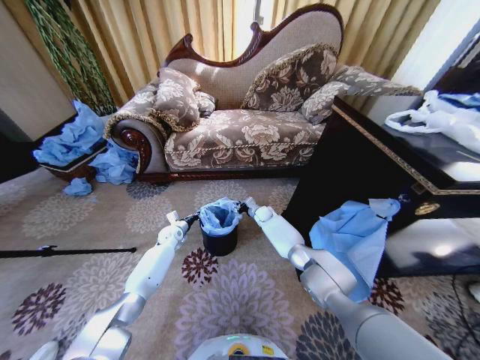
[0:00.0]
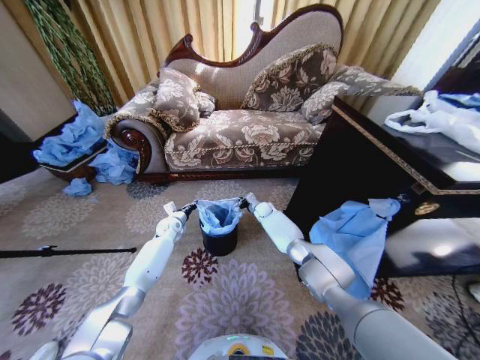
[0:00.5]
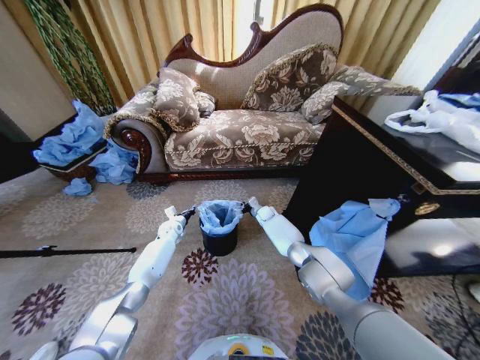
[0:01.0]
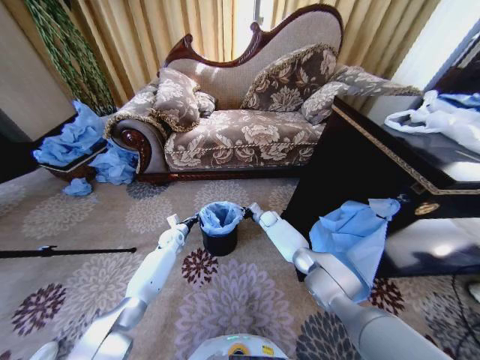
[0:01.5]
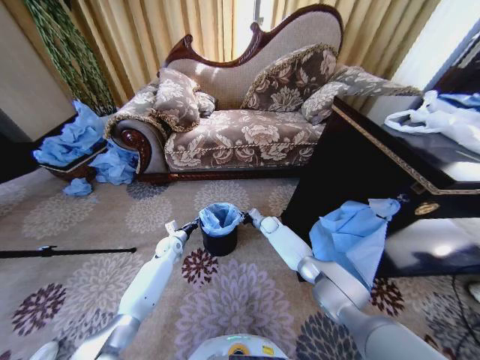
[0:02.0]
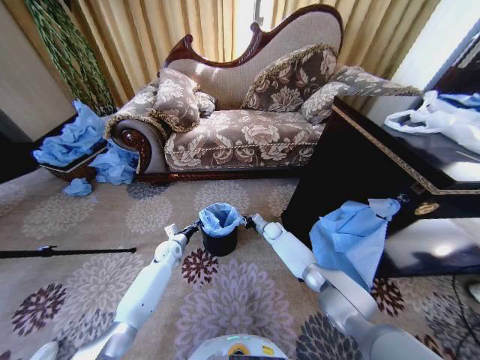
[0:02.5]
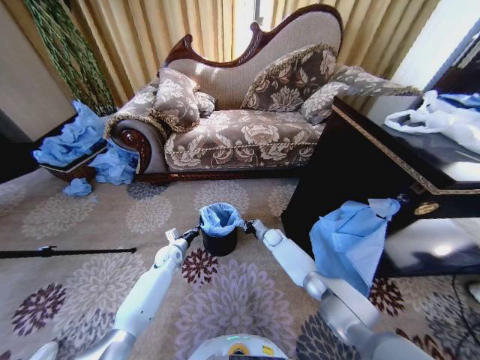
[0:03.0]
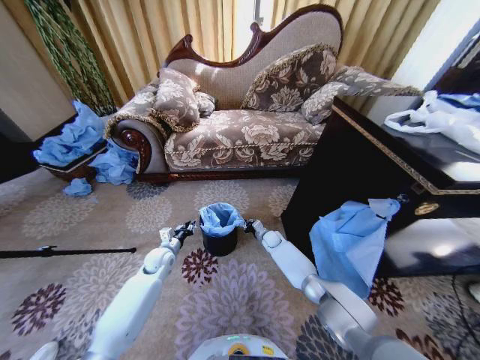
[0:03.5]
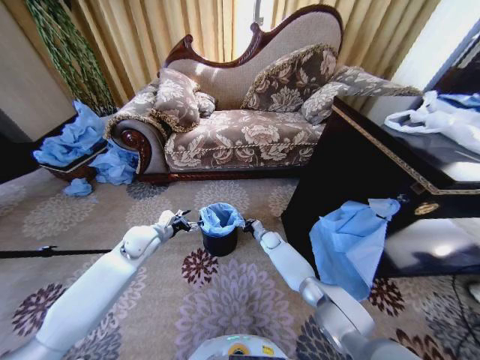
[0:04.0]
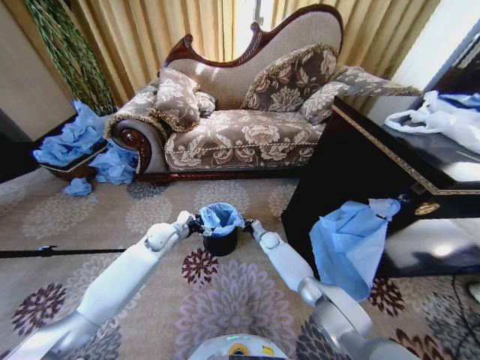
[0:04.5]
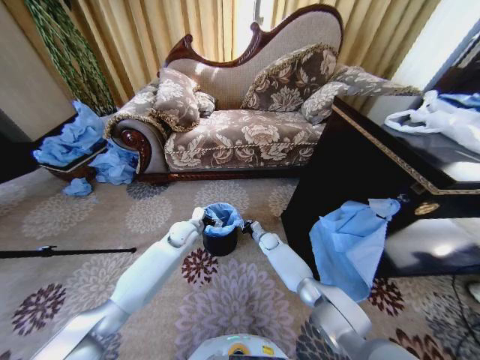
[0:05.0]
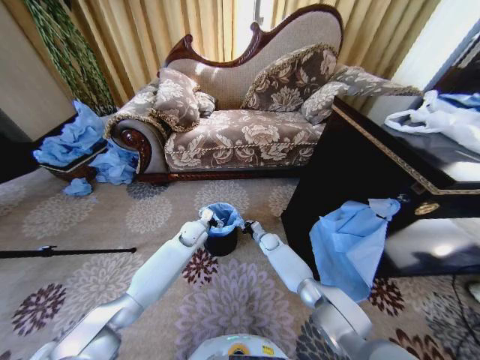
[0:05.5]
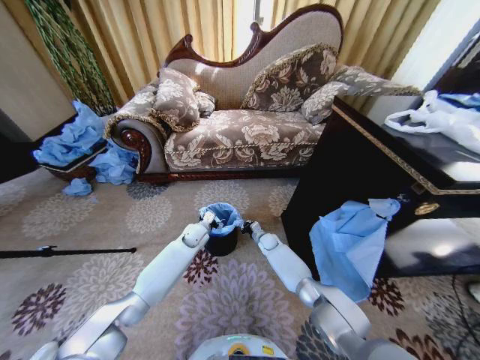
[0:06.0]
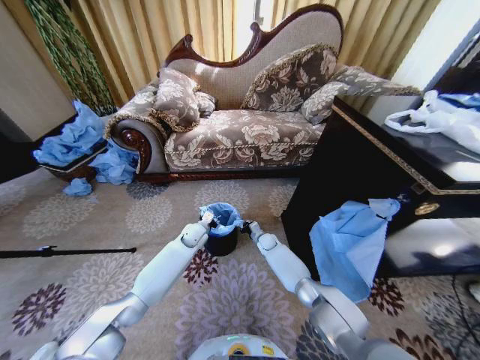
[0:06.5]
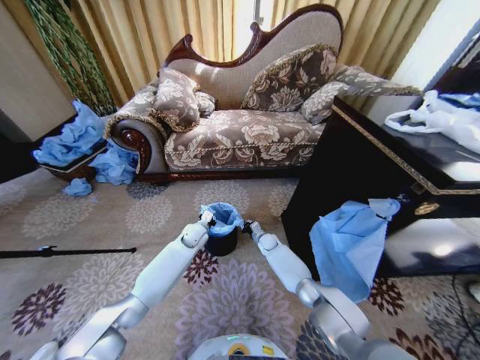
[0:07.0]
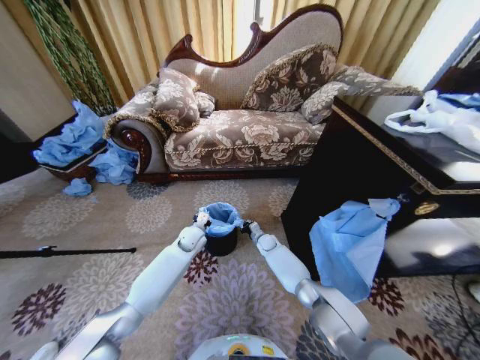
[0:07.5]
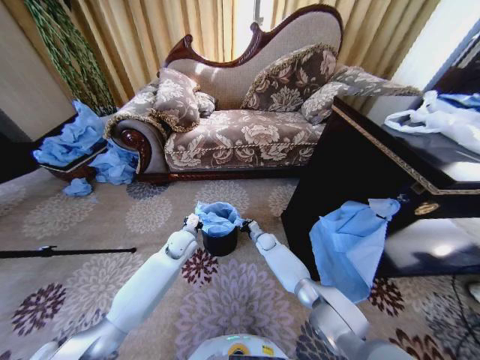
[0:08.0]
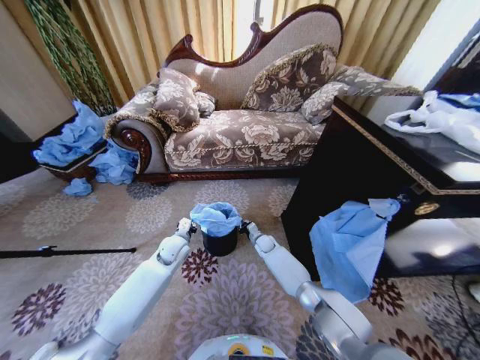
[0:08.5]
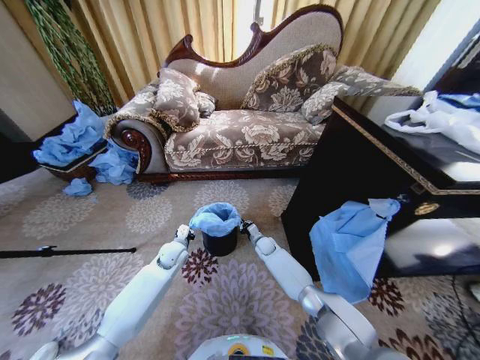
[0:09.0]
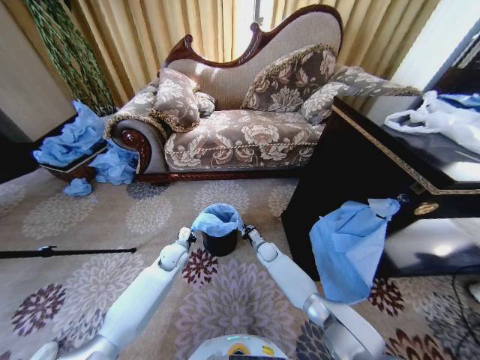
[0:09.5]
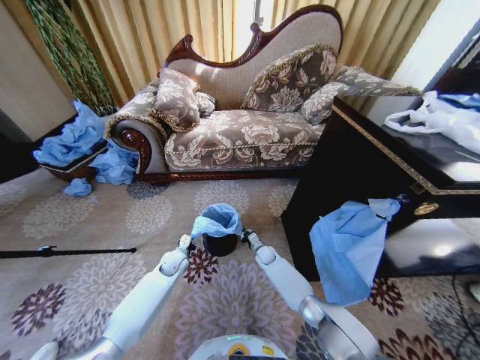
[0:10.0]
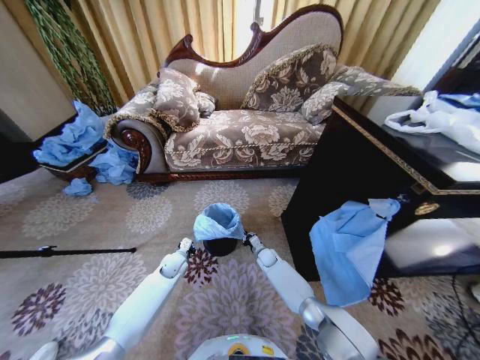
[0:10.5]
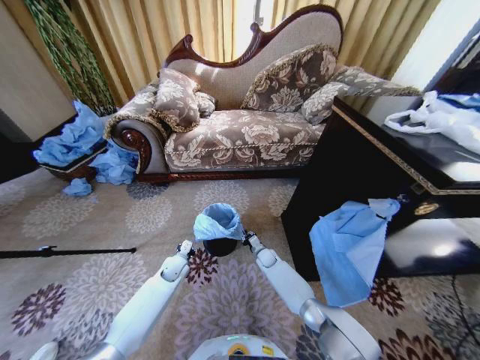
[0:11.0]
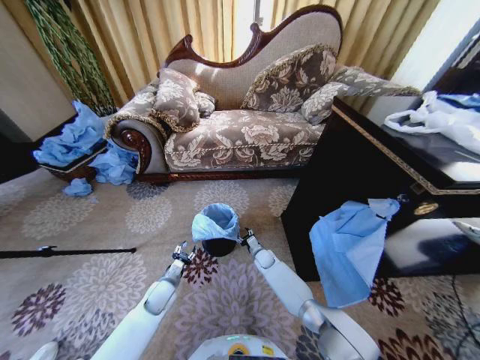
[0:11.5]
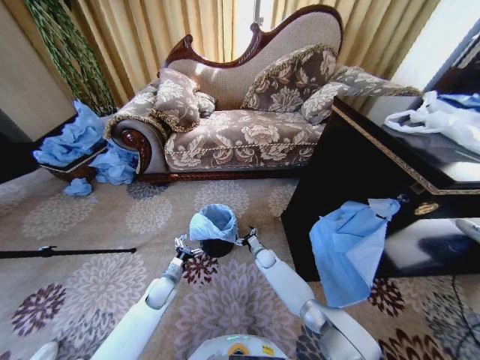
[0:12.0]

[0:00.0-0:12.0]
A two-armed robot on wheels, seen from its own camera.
Task of the whole recording: Place a garbage bag over the trash bin.
0:00.0 to 0:02.0: The right gripper ends up some 5 cm from where it was.
0:02.0 to 0:04.0: The left gripper shifts about 20 cm upward and backward, and opens up; the right gripper travels backward by some 5 cm.
0:04.0 to 0:06.0: The left gripper is displaced to the right, downward and forward by some 20 cm.
0:06.0 to 0:08.0: The left gripper heads backward, covering about 5 cm, and closes its fingers.
0:08.0 to 0:10.0: The left gripper travels downward by about 10 cm. Meanwhile the right gripper shifts by some 5 cm.
0:10.0 to 0:12.0: The left gripper goes some 10 cm backward, and opens. Meanwhile the right gripper opens its fingers.

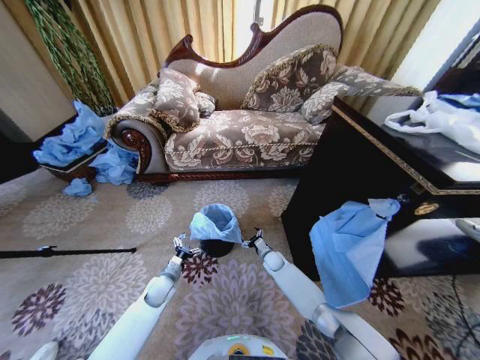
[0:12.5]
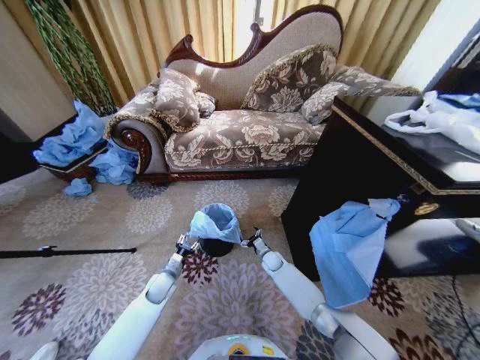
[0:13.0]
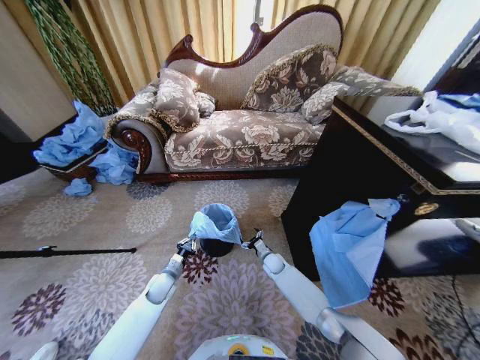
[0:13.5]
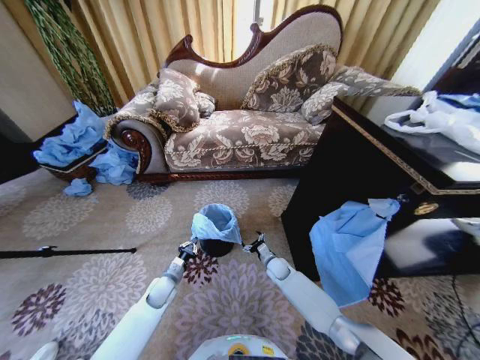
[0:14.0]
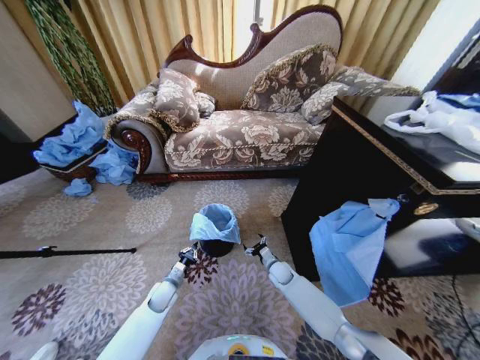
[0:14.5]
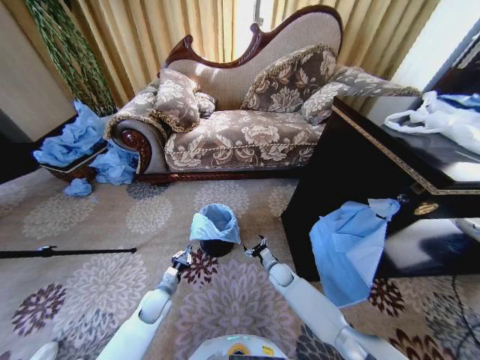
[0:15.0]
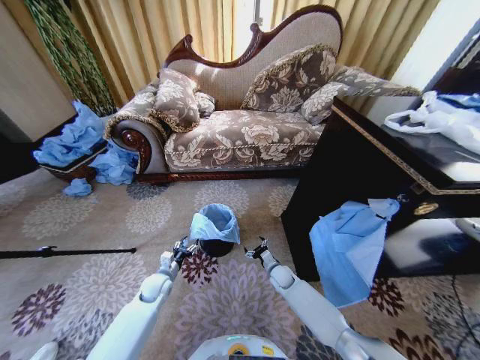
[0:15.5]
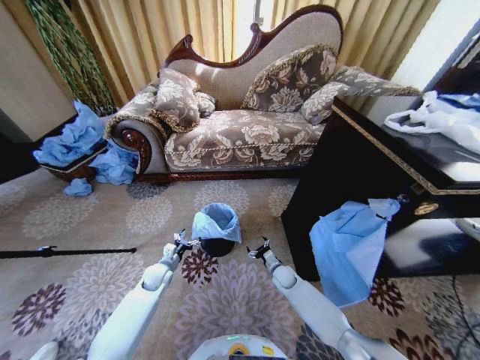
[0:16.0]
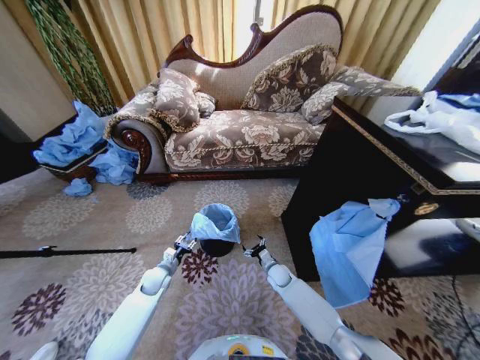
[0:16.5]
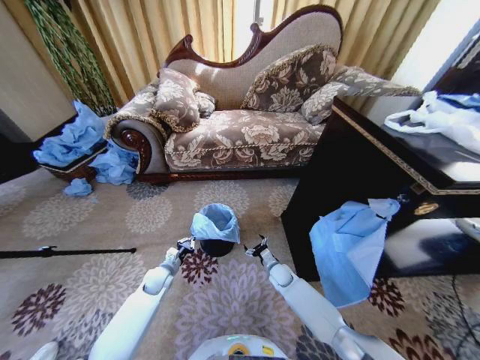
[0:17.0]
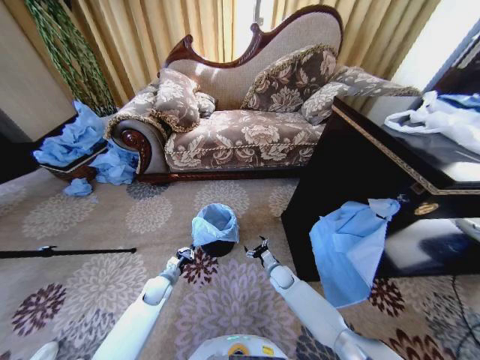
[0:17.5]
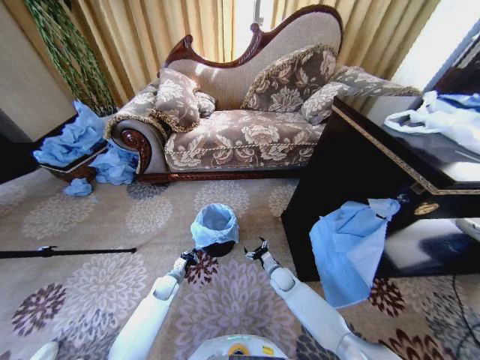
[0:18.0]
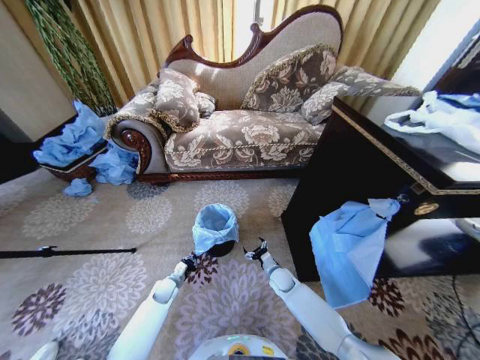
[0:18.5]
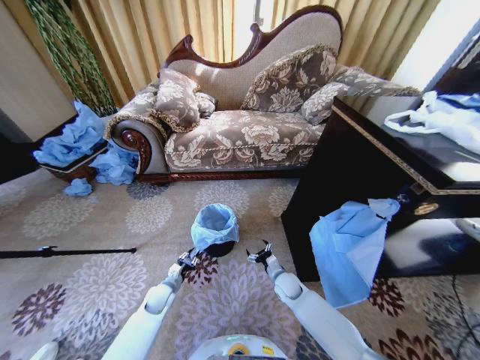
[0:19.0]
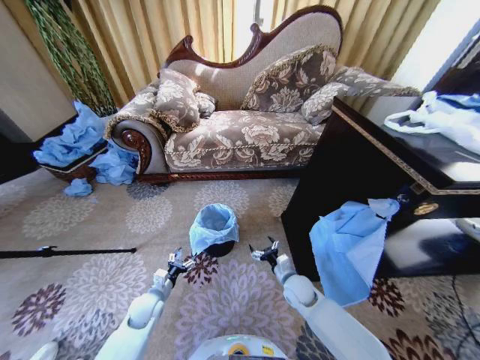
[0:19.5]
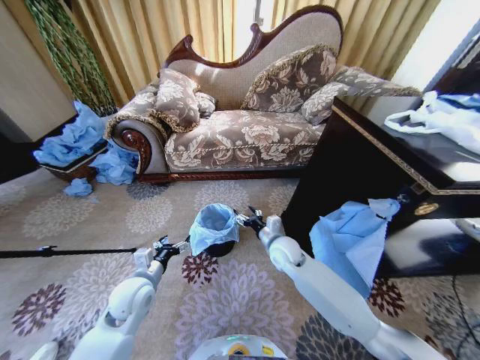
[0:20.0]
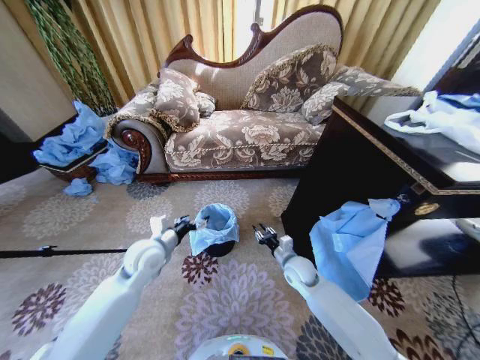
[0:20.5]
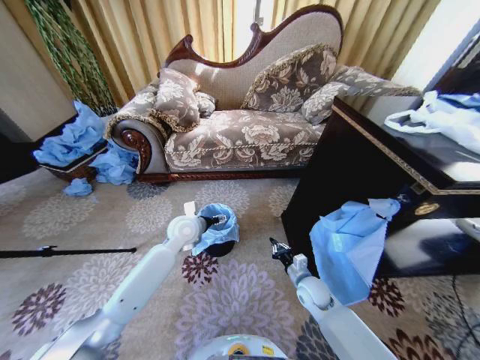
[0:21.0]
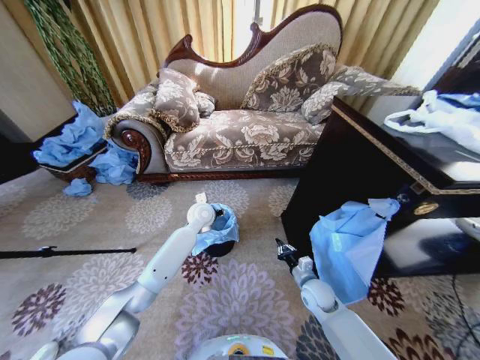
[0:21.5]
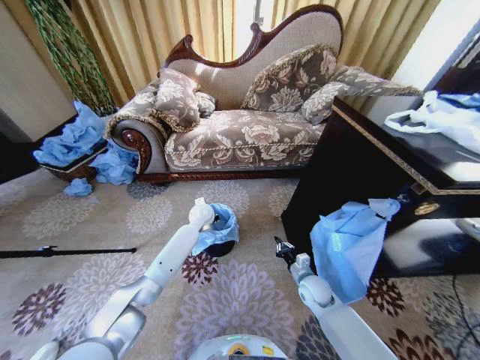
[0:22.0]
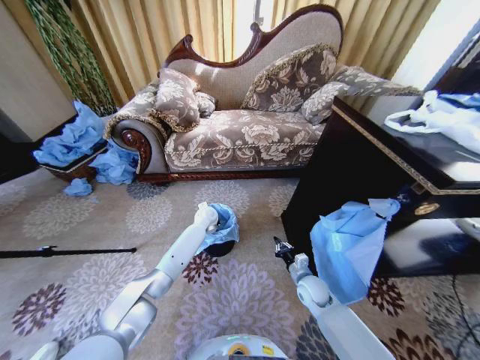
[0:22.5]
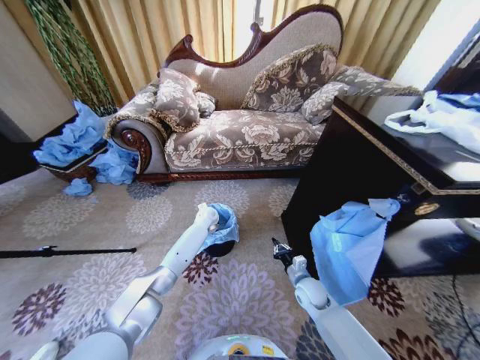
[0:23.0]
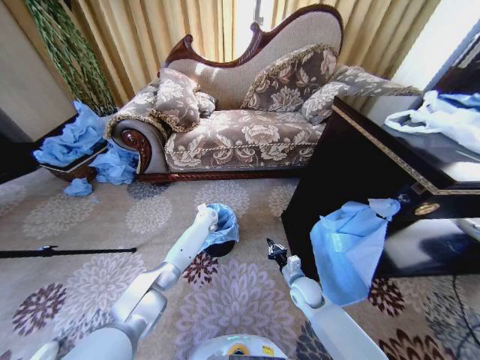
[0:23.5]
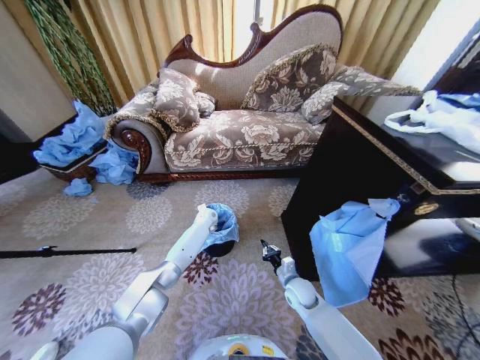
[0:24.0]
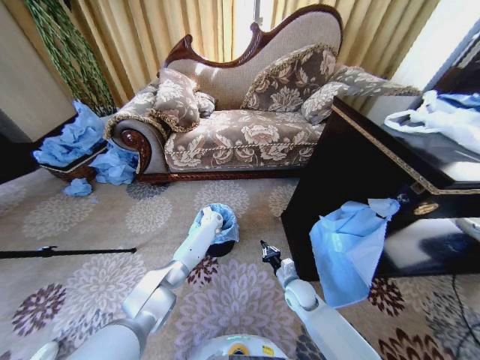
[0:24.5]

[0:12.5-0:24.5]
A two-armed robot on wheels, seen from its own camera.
Task of the whole recording: Place a garbage bag over the trash bin.
0:12.5 to 0:14.5: The left gripper closes up. Meanwhile the right gripper heads backward, covering some 5 cm.
0:14.5 to 0:16.5: The left gripper moves about 5 cm, and opens up.
0:16.5 to 0:18.5: The left gripper moves downward, approximately 10 cm, and closes up.
0:18.5 to 0:20.5: The left gripper travels upward by approximately 30 cm, and opens. Meanwhile the right gripper goes about 15 cm upward, and closes up.
0:20.5 to 0:22.5: The right gripper travels downward and to the right by some 10 cm; the left gripper heads forward and to the right, covering approximately 25 cm, and closes.
0:22.5 to 0:24.5: The left gripper heads downward, covering roughly 5 cm.

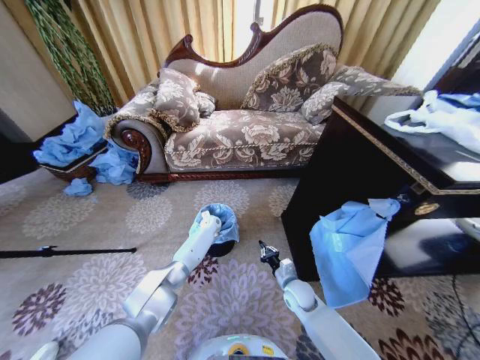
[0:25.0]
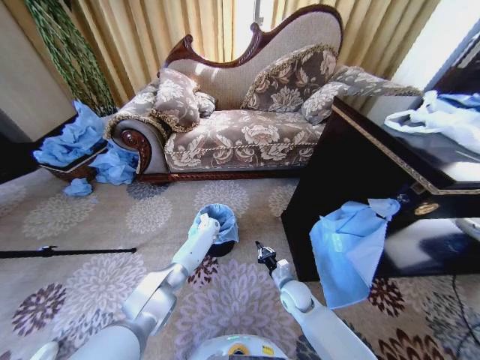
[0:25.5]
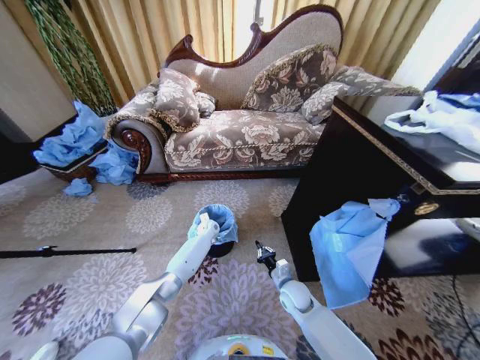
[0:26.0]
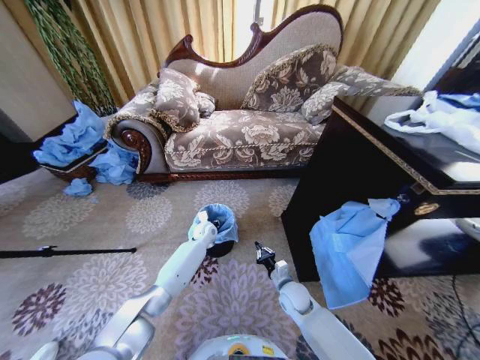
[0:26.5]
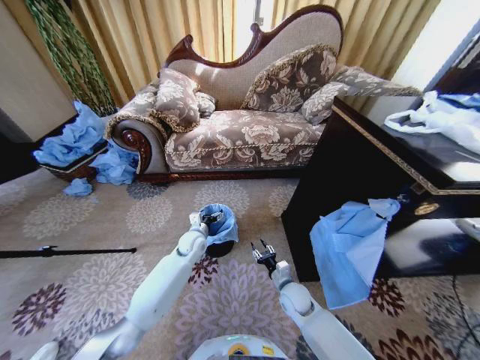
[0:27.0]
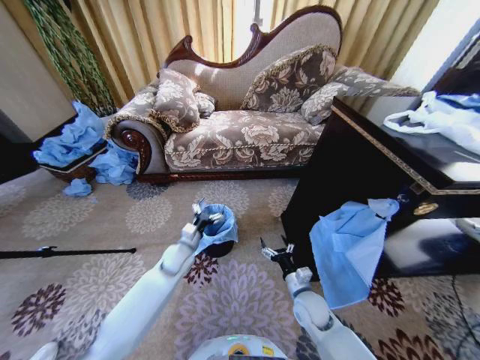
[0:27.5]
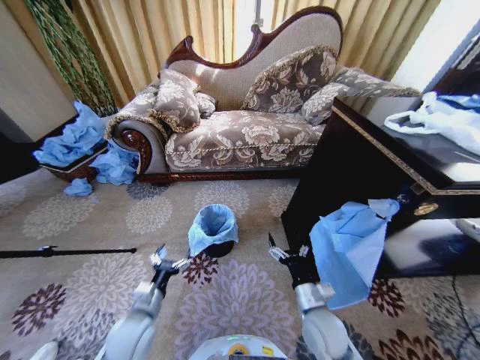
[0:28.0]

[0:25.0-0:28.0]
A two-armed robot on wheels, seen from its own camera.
Task of the whole recording: Place a garbage bag over the trash bin.
0:25.0 to 0:26.5: The left gripper shifts approximately 5 cm backward, and opens its fingers.
0:26.5 to 0:28.0: The left gripper travels backward by roughly 35 cm, and opens, while the right gripper moves backward and upward, roughly 15 cm, and opens its fingers.
